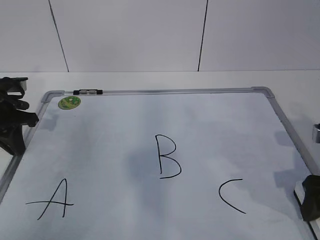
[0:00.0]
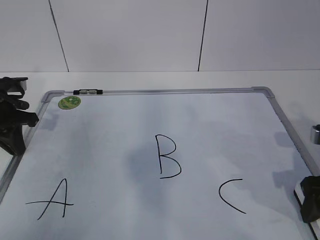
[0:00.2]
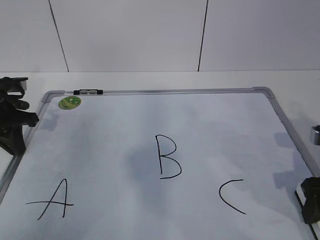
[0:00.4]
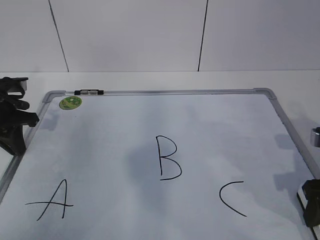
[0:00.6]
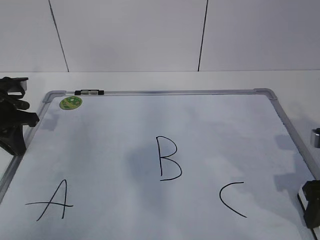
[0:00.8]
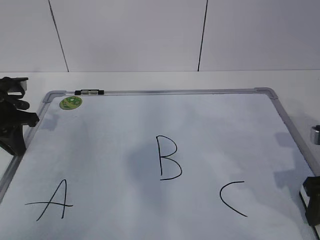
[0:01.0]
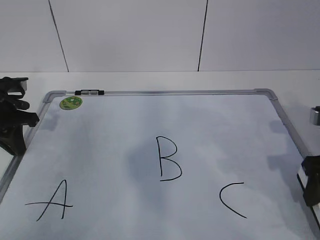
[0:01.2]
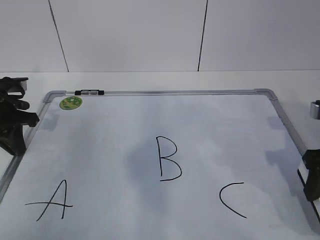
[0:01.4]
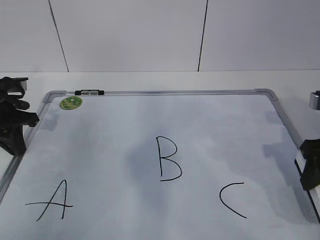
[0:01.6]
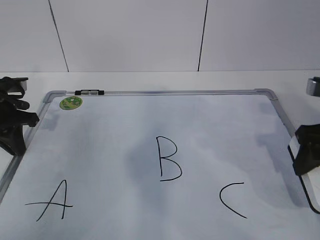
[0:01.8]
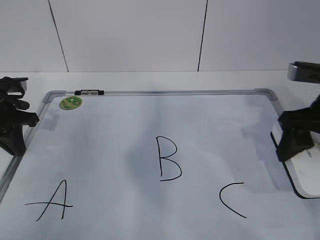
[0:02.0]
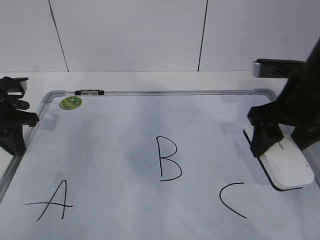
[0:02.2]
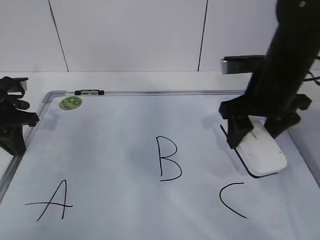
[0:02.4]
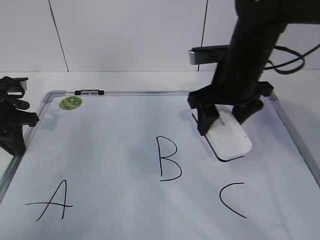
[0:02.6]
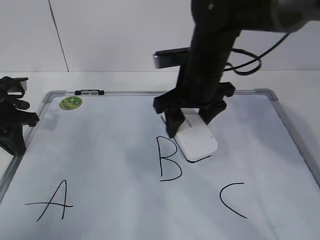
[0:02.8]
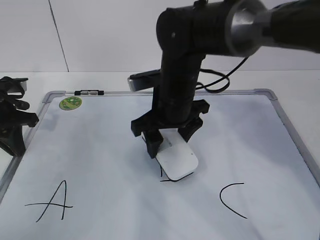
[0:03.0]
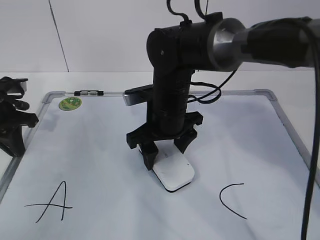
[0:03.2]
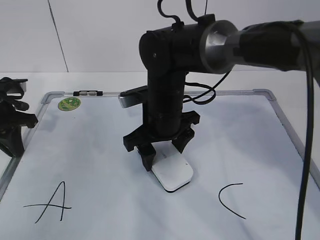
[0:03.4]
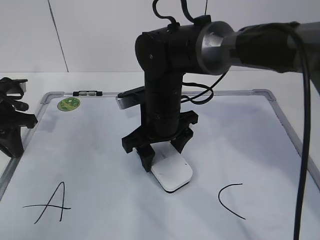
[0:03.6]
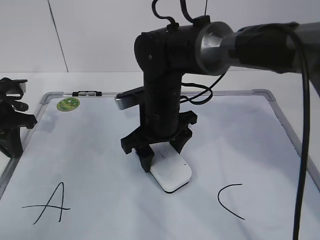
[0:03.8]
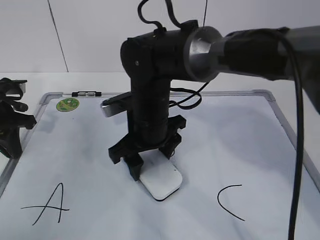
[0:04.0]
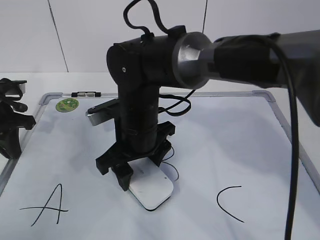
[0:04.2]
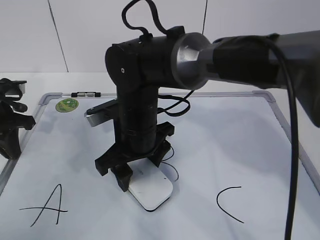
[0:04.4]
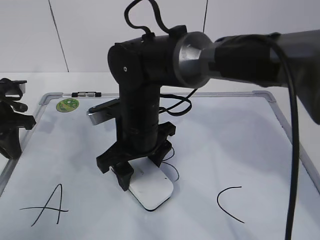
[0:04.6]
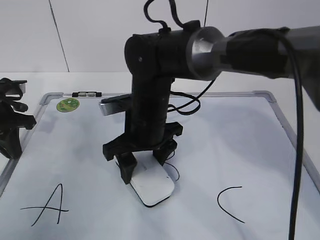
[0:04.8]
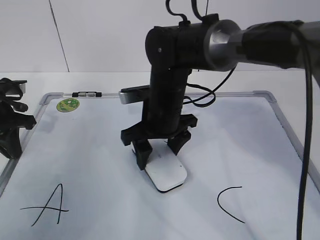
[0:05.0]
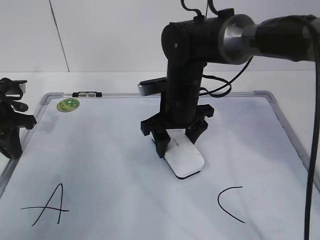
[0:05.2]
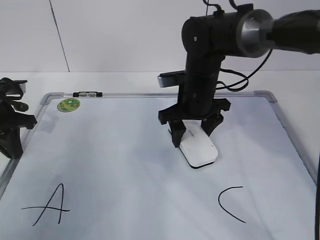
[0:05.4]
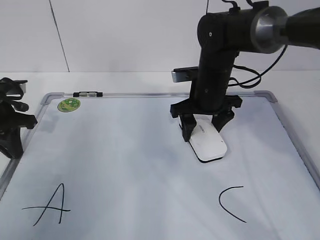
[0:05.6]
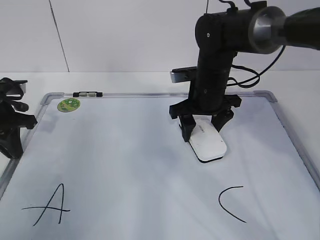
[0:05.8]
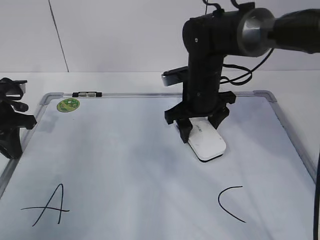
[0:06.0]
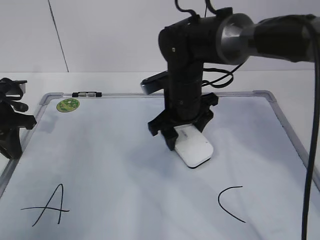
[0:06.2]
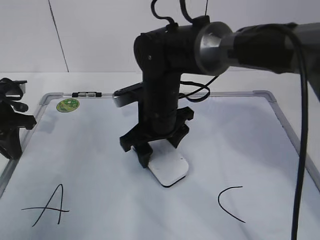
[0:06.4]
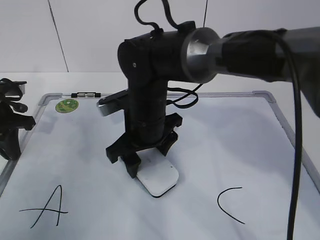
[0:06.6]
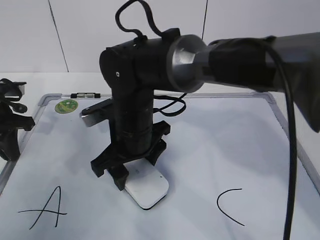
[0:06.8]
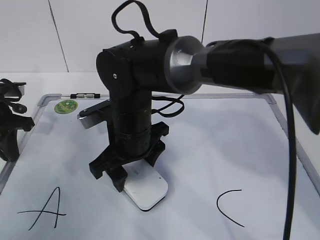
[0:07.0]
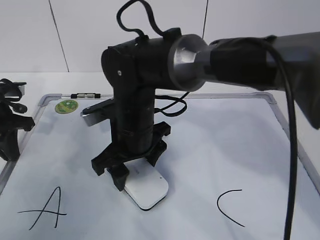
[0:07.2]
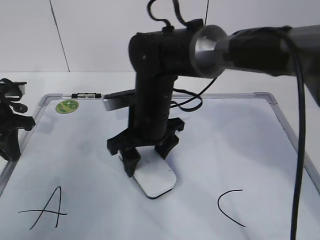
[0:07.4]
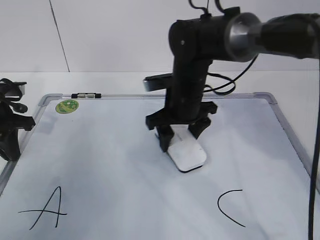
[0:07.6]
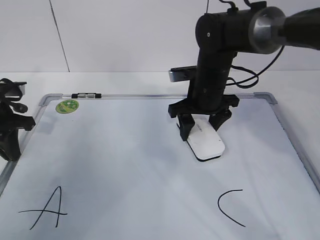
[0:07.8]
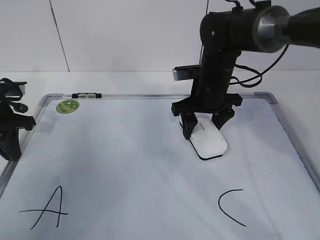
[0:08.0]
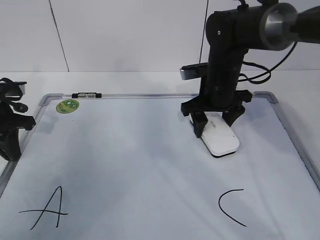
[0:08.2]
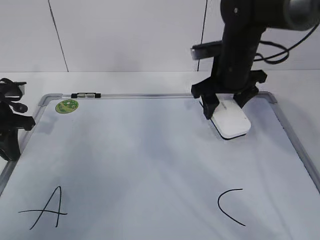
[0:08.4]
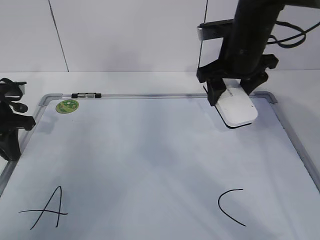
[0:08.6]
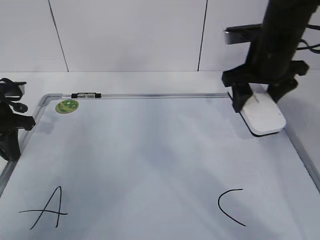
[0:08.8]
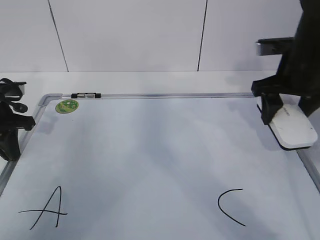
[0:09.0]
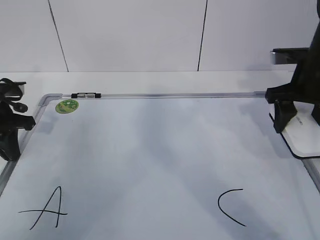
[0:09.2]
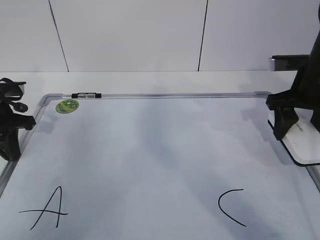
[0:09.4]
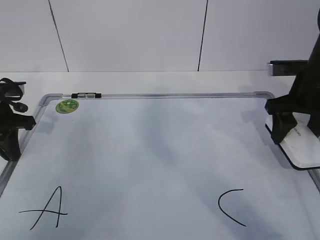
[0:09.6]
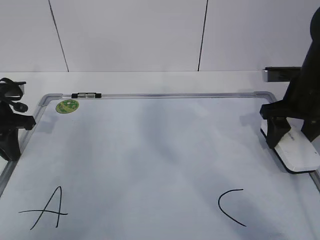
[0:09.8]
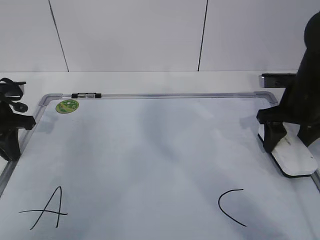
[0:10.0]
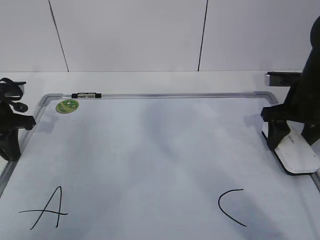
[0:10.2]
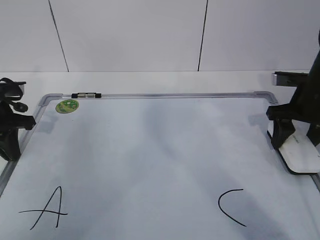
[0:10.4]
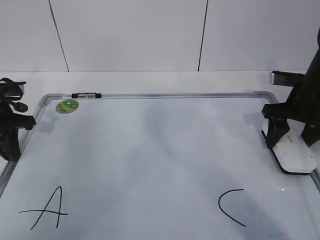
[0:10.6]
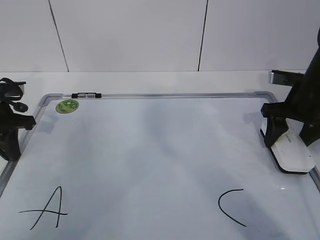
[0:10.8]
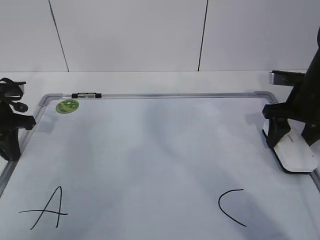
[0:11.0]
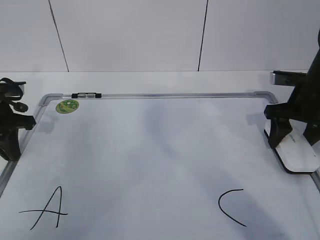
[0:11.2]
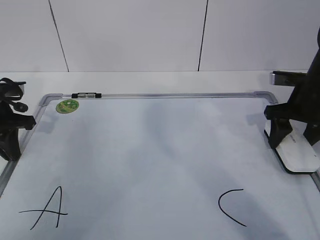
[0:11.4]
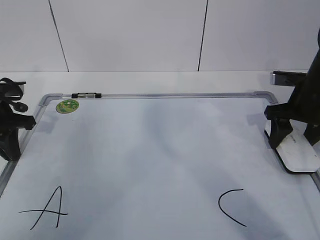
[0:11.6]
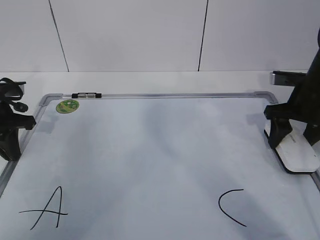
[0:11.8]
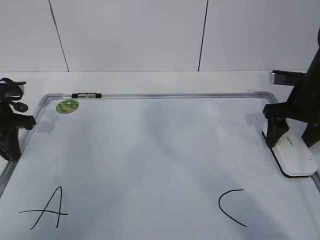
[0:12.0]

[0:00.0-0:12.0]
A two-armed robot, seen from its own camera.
Task of the whole recording: pick up the eraser on the blackboard and erase the letter "B".
Step, 0:00.0 to 0:05.4: Erase the letter B with your right hand.
Step, 0:05.6 to 0:08.4: Put down the eraser with your right hand.
0:00.0 to 0:01.6: The right gripper shifts by about 5 cm, and closes up.
0:01.6 to 0:03.0: The right gripper goes roughly 25 cm to the left and forward.
0:03.0 to 0:04.4: The right gripper moves to the left, approximately 5 cm.
0:04.4 to 0:06.0: The right gripper moves to the right and forward, approximately 15 cm.
0:06.0 to 0:07.6: The right gripper moves approximately 15 cm to the left and comes back.
0:07.6 to 0:09.0: The right gripper is displaced to the right and upward by roughly 20 cm.
0:09.0 to 0:10.4: The right gripper goes about 10 cm downward and to the right.
0:10.4 to 0:12.0: The right gripper opens up.

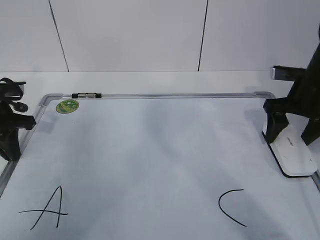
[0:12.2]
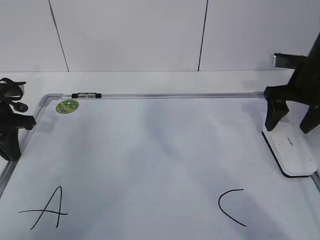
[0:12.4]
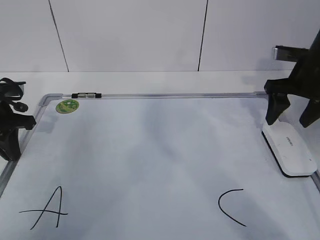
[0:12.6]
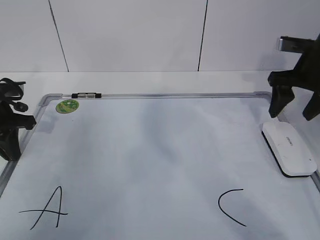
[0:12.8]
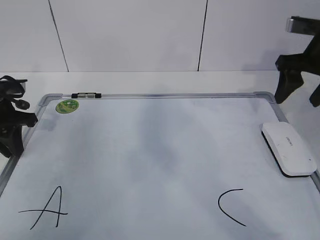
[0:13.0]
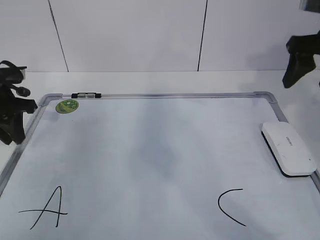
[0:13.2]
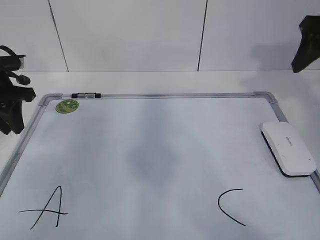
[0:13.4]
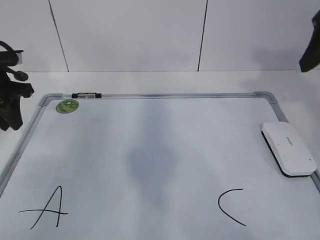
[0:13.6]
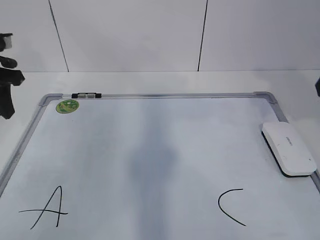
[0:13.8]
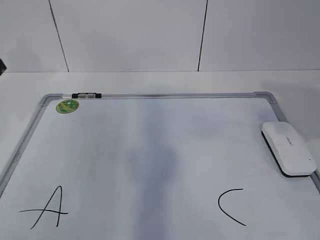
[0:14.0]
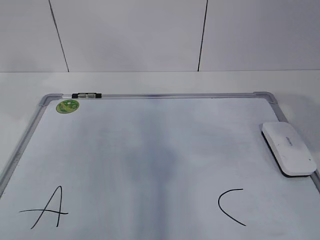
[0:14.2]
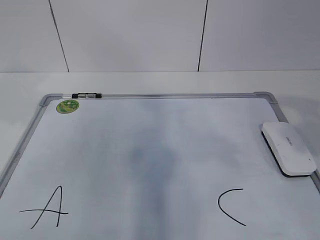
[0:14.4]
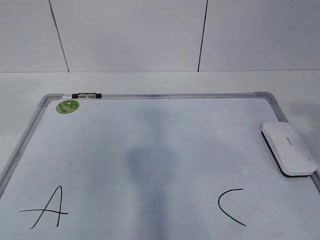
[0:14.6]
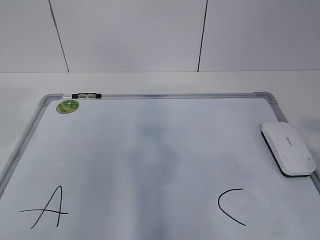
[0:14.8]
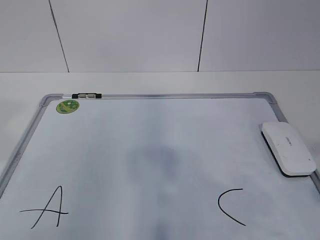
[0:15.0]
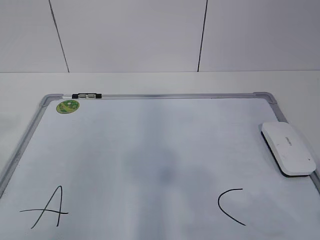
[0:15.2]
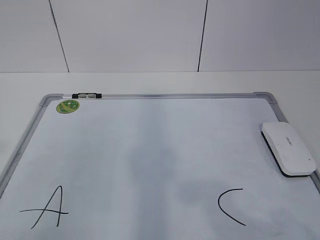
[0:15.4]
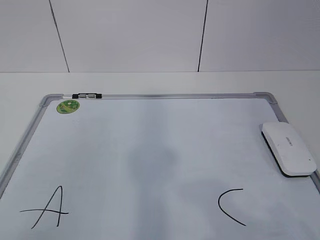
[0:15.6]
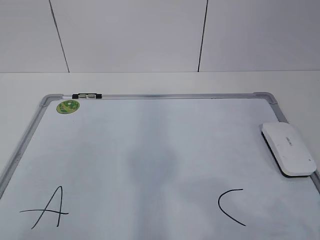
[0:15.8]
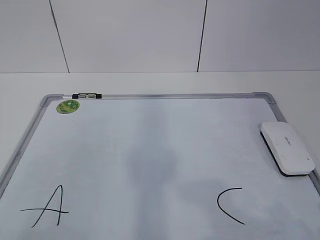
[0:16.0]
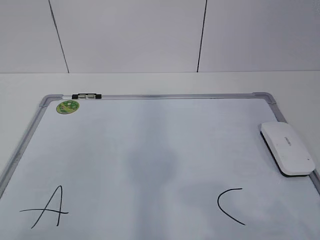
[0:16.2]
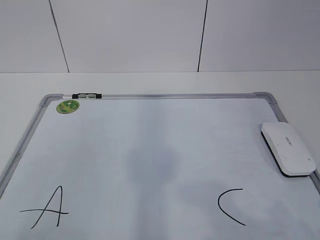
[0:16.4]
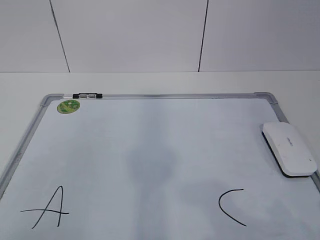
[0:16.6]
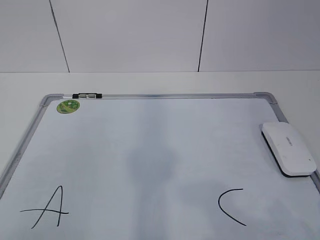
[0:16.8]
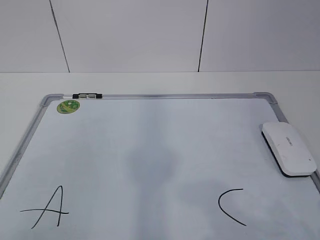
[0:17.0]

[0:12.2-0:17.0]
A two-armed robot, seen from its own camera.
Task of the whole recording: pick up the eraser on the blackboard and erase the letter "B".
0:12.2 to 0:13.8: The left gripper moves upward, about 10 cm, and opens. Meanwhile the right gripper is displaced upward and backward by approximately 20 cm, and closes its fingers.
0:13.8 to 0:15.4: The grippers both shift backward by some 30 cm.
